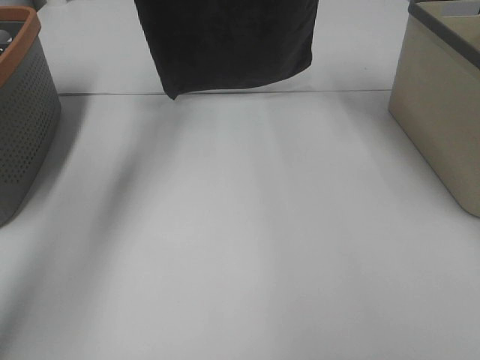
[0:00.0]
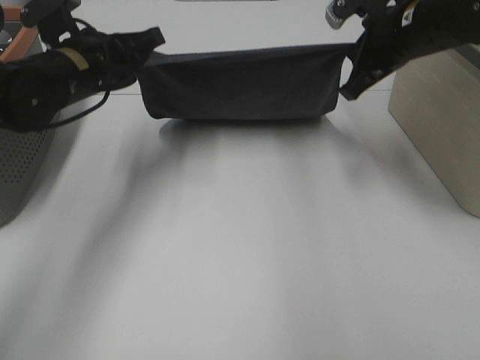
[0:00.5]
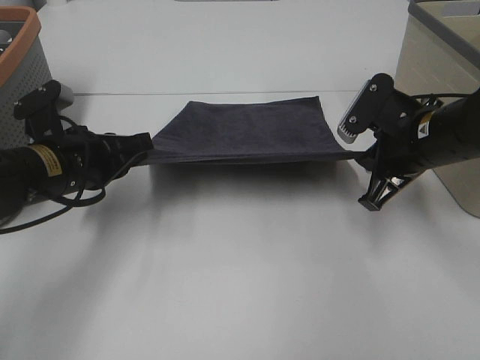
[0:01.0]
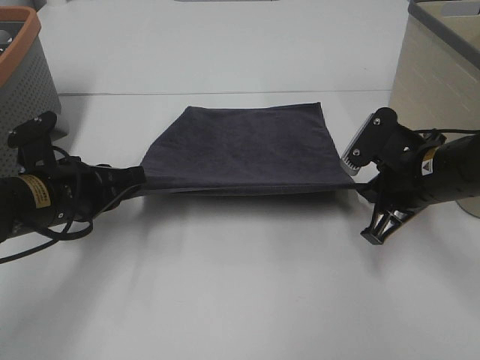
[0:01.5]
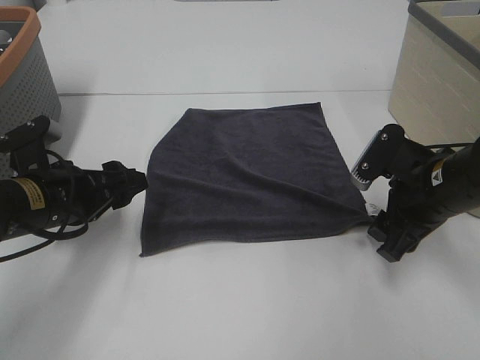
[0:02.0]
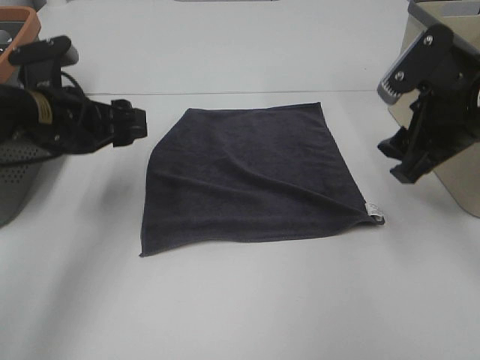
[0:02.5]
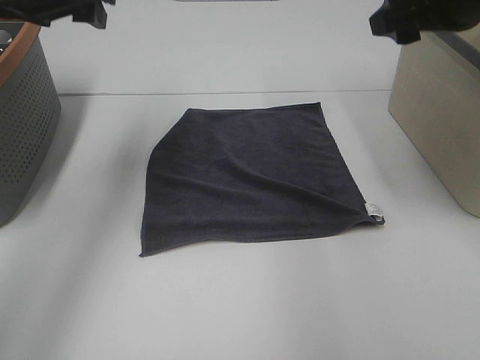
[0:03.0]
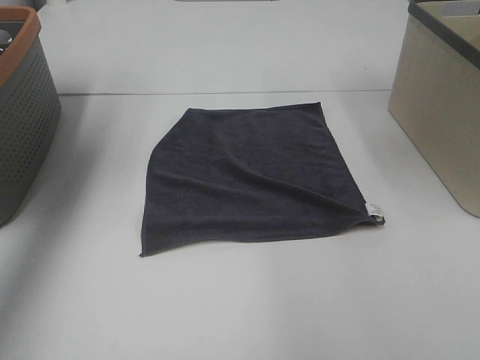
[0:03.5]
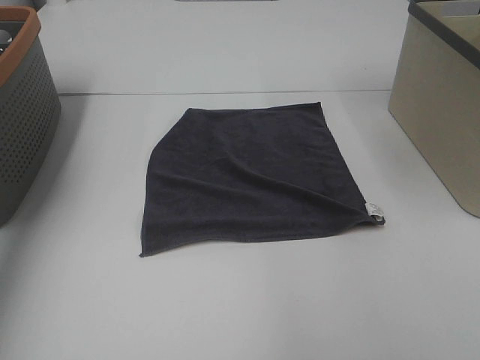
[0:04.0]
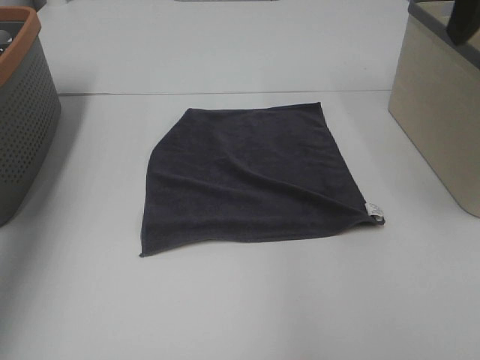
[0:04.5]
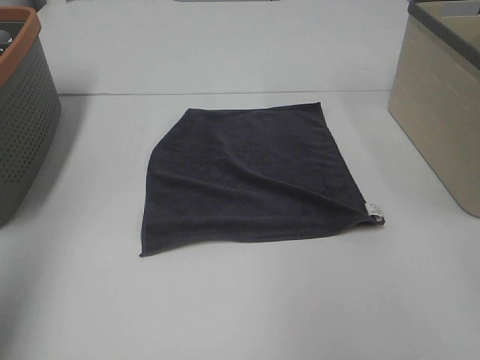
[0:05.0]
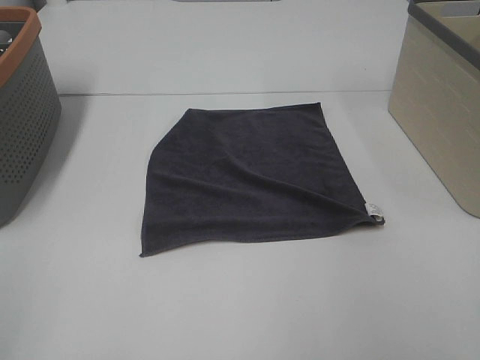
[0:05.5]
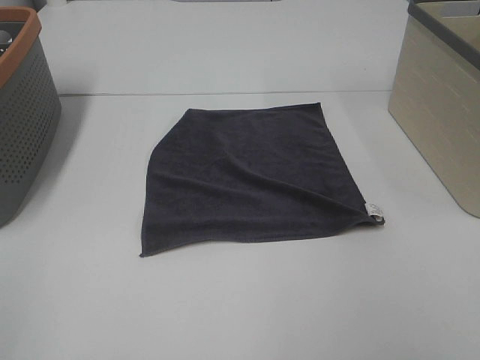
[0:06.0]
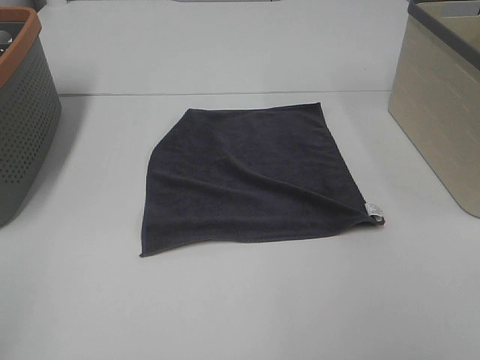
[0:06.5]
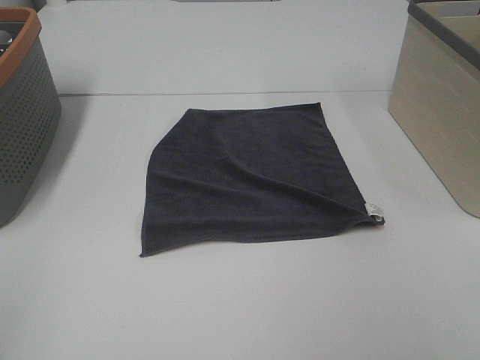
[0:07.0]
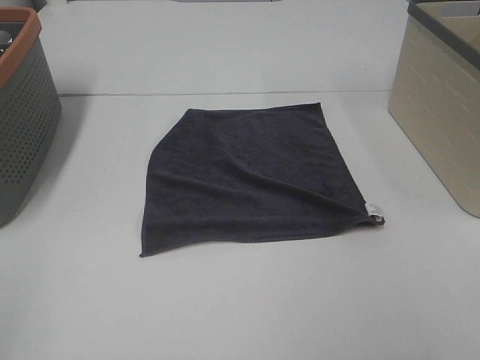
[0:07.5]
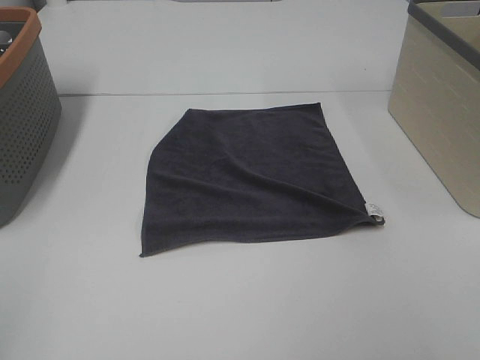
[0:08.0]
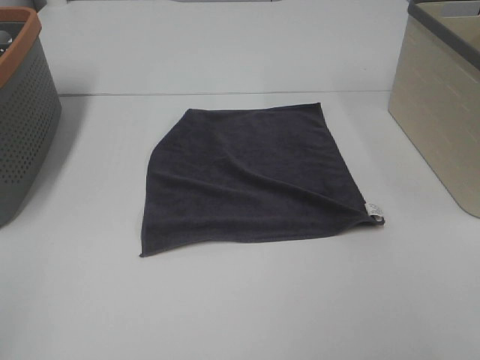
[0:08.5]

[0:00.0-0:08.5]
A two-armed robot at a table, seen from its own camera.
Task of the whole recording: Remove the towel and place it.
0:00.0 to 0:02.0: The left gripper heads backward and downward, covering approximately 30 cm, and opens. The right gripper shifts about 30 cm downward and backward, and opens its fingers.
0:02.0 to 0:04.0: The right gripper heads upward, covering about 30 cm, while the left gripper travels upward and to the left by some 30 cm.
0:04.0 to 0:06.5: The grippers both shift backward by roughly 35 cm.

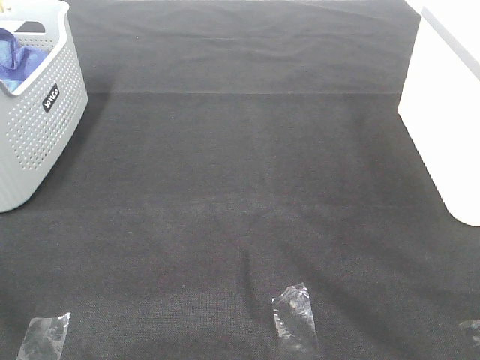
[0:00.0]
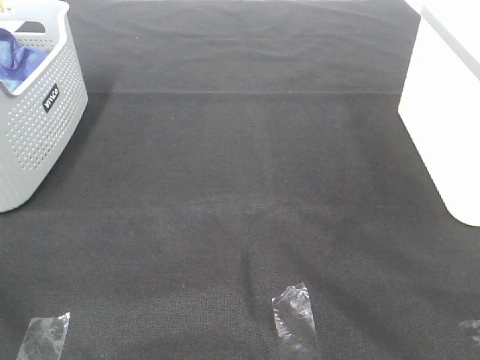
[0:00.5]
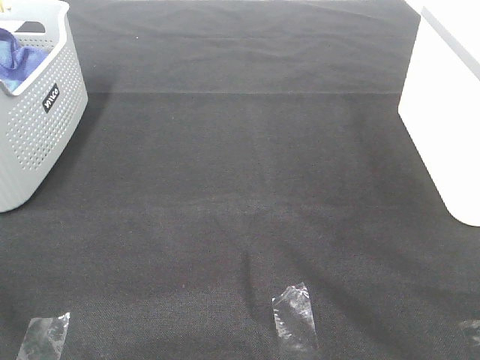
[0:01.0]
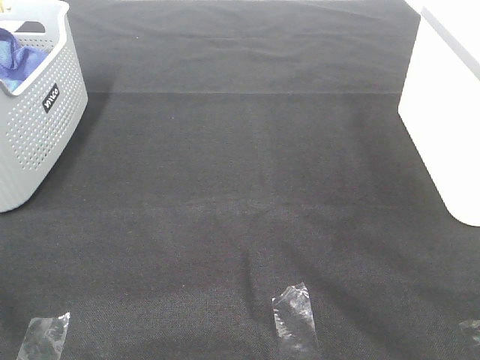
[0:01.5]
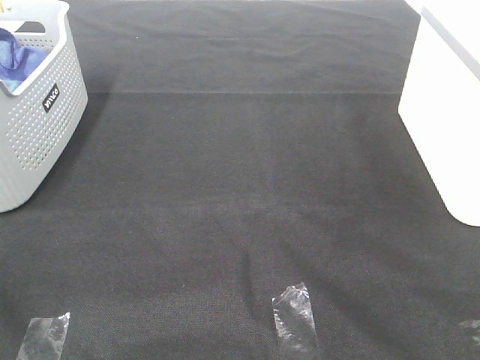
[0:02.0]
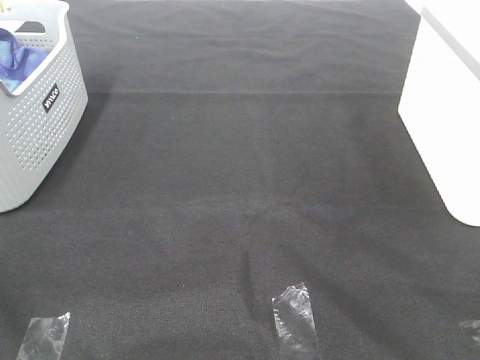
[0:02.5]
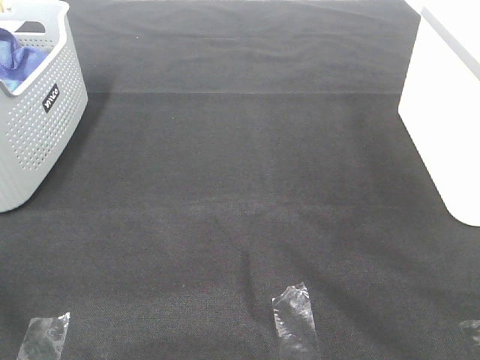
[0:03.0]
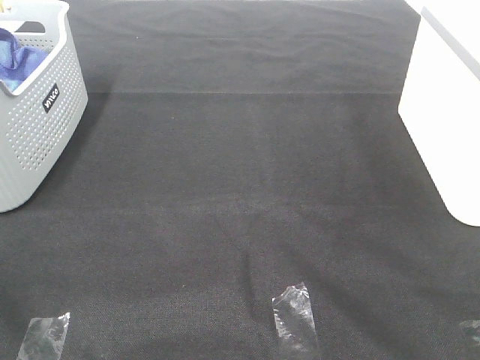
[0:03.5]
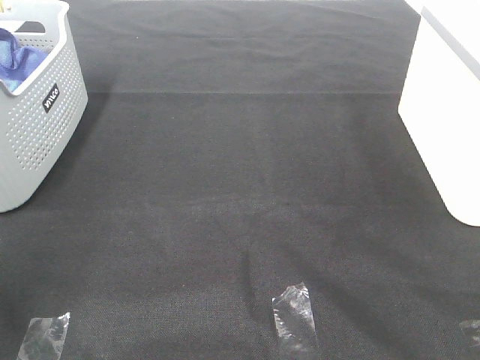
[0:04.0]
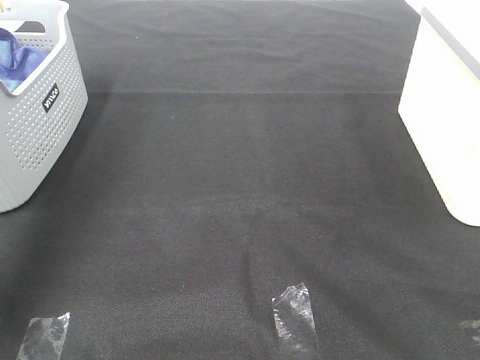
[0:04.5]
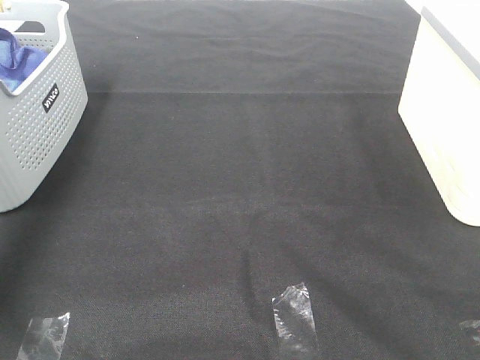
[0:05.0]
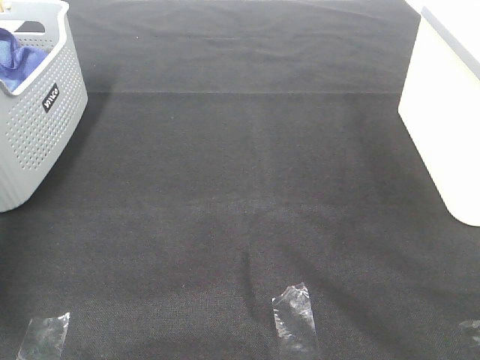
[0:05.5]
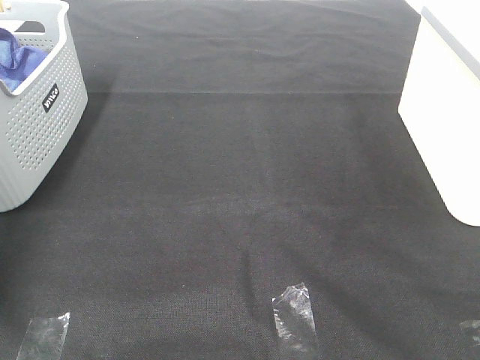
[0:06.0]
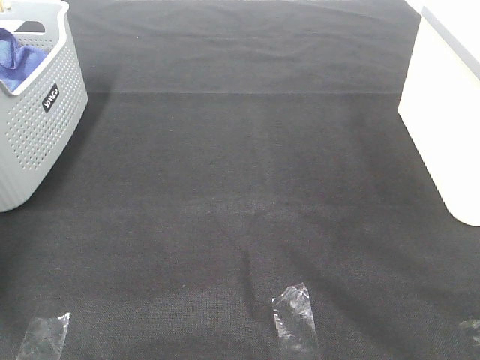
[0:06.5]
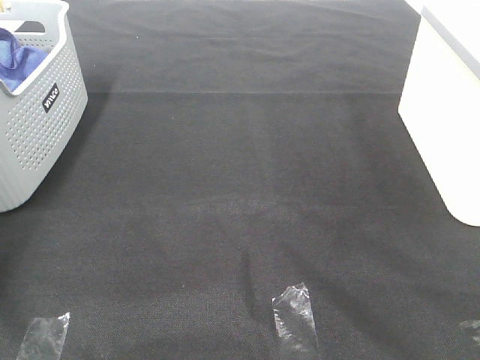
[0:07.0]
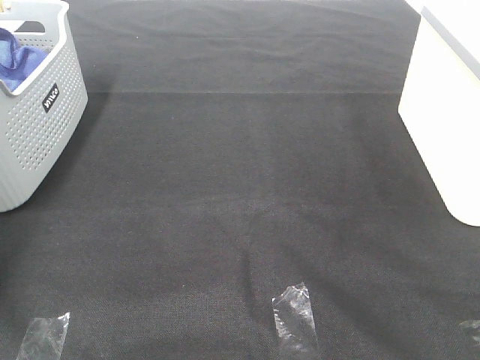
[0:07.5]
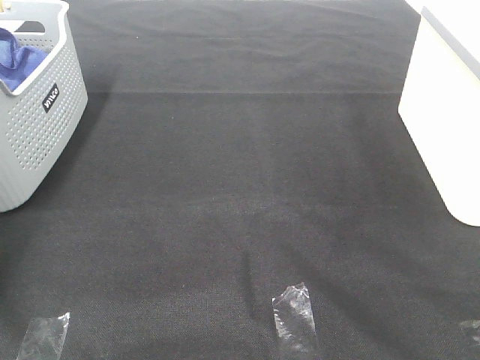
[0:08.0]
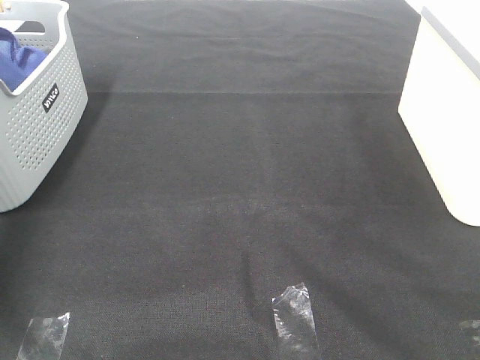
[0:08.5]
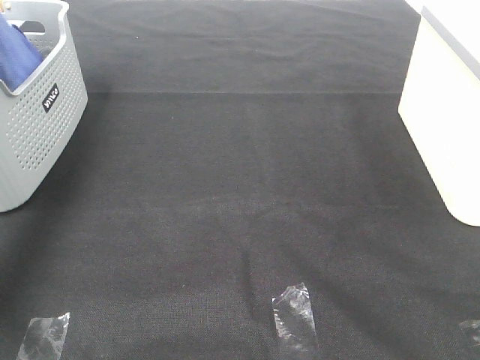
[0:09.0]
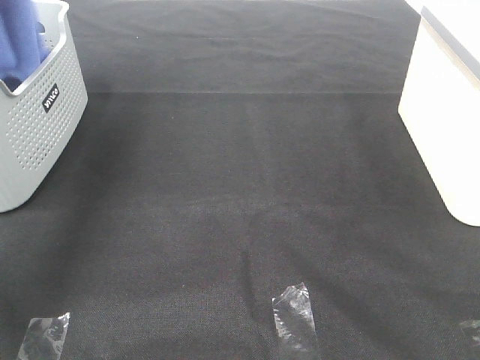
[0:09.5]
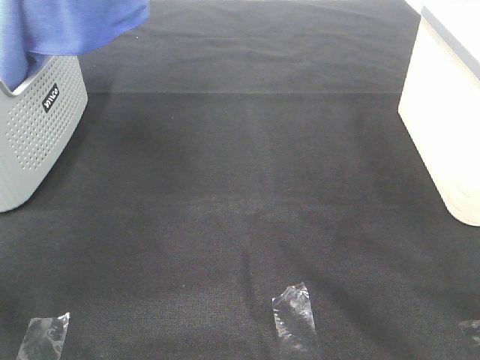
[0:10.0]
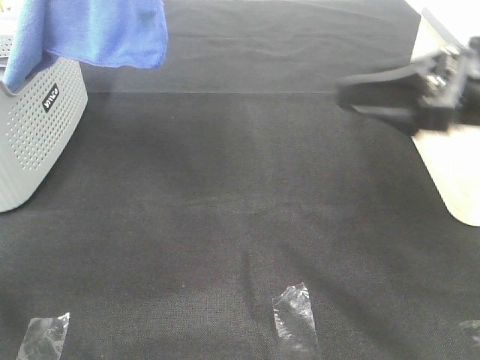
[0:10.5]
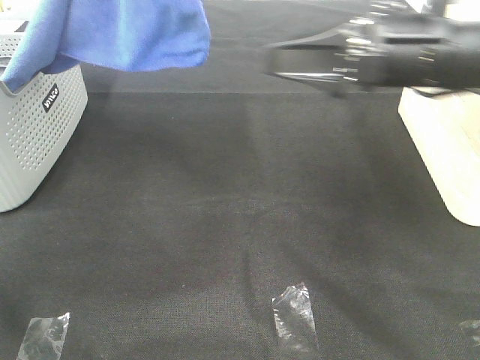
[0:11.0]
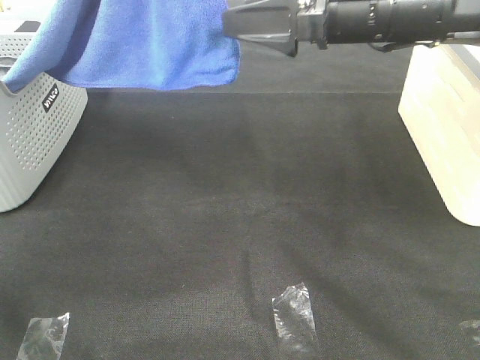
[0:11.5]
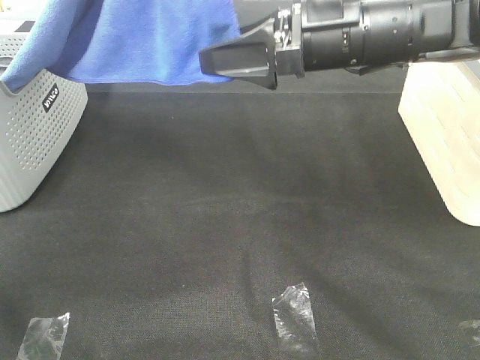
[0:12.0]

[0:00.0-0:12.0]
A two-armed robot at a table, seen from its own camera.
Task of the whole recording: Remove the towel and place it.
0:00.0 to 0:02.0: Neither gripper changes place.
0:04.0 to 0:06.0: The left gripper is displaced forward and downward by roughly 40 cm.
0:08.0 to 0:10.0: The left gripper is displaced upward, to the right and backward by roughly 40 cm.
0:10.0 to 0:12.0: The right gripper travels forward and to the left by approximately 25 cm; the left gripper travels to the right by approximately 10 cm.

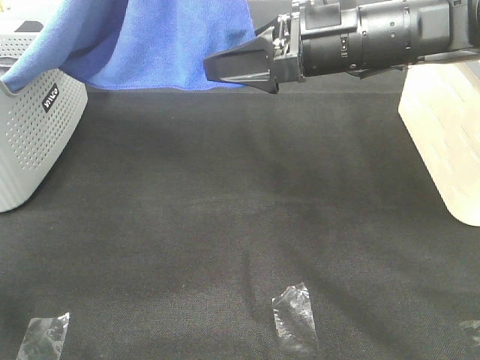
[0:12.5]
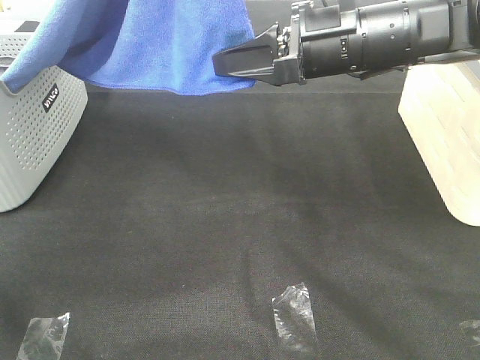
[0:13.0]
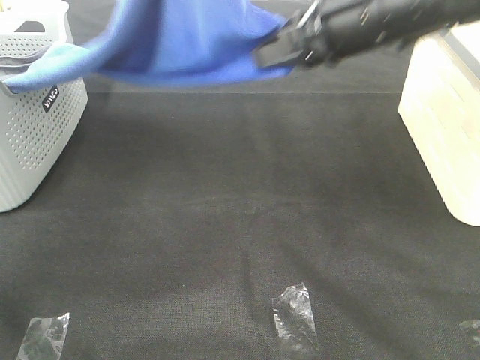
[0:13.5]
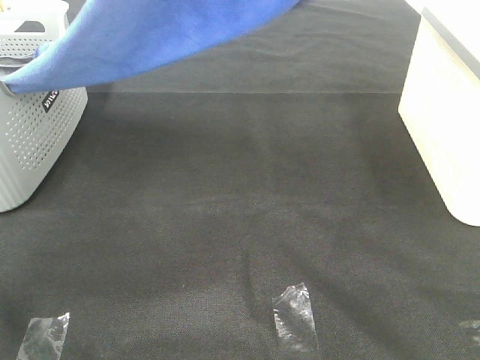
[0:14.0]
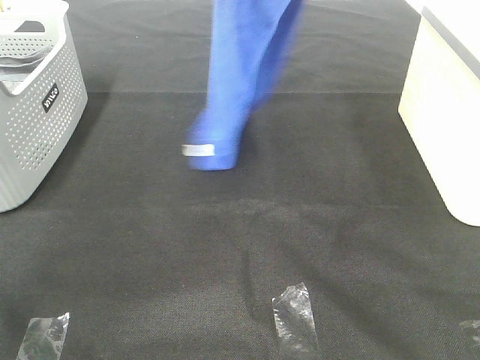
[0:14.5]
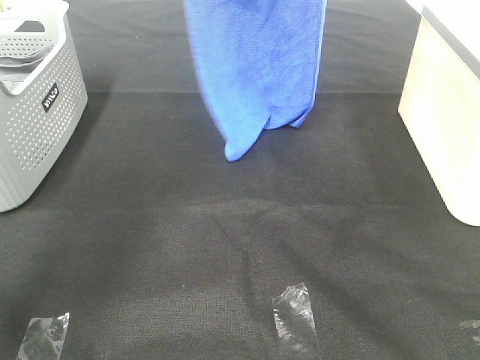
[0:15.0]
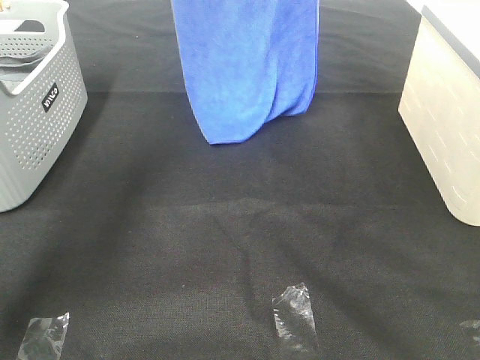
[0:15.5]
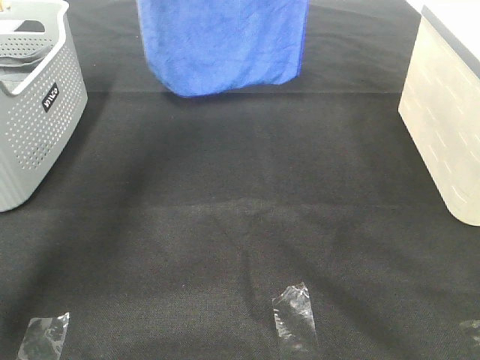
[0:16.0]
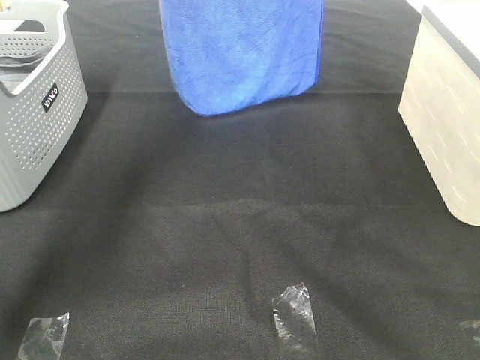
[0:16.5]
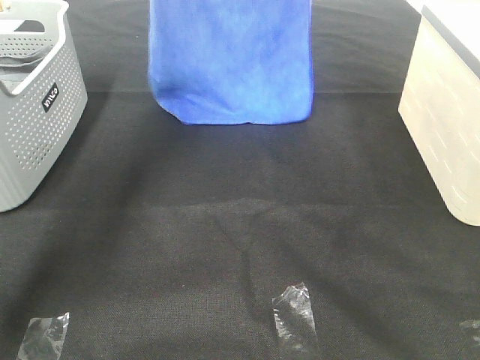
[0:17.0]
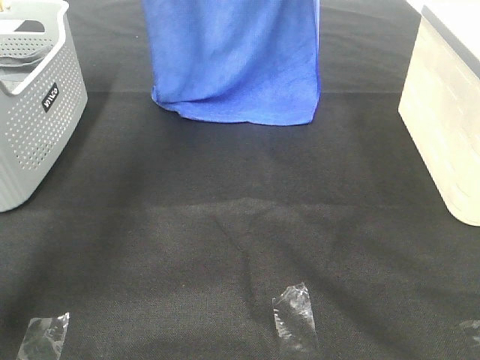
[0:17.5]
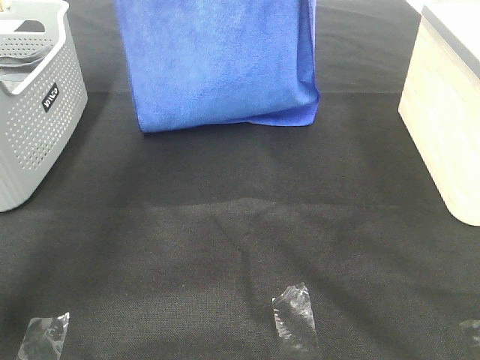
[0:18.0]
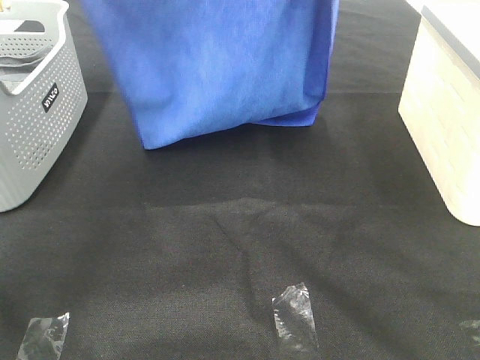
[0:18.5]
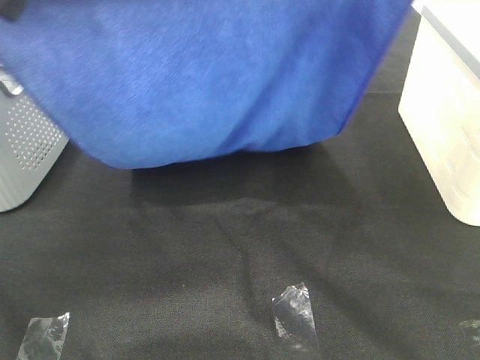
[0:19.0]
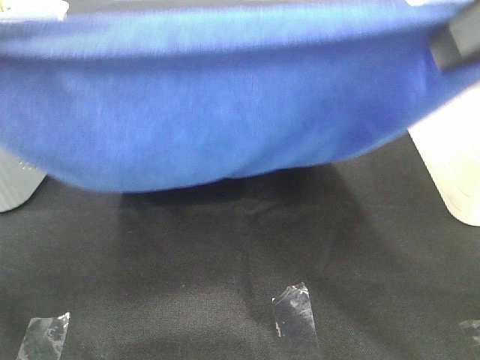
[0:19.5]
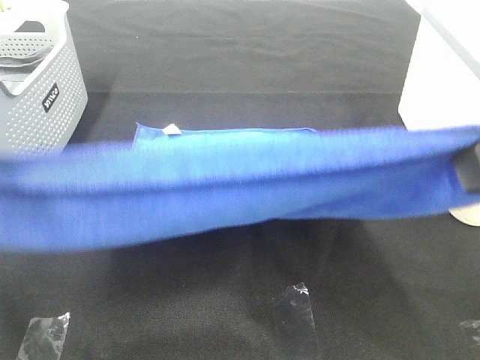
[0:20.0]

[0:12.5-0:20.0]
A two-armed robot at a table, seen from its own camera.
Task of the whole recording: Remove the towel and place it.
Step, 0:13.0 to 0:18.5: Left hand: spread the blue towel flat on the table.
Step, 0:13.0 to 0:18.5: Right hand: spread the blue towel flat on the table.
0:12.5 to 0:14.5: The right gripper goes about 25 cm upward, and closes its fingers. The left gripper travels forward by roughly 10 cm.
0:14.5 to 0:16.5: The right gripper travels forward by about 10 cm. The left gripper heads forward and to the left, covering some 15 cm.
0:16.5 to 0:18.0: The two grippers go roughly 10 cm backward.
0:18.0 to 0:20.0: The right gripper shifts approximately 30 cm backward; the left gripper heads backward and downward, covering roughly 30 cm.
